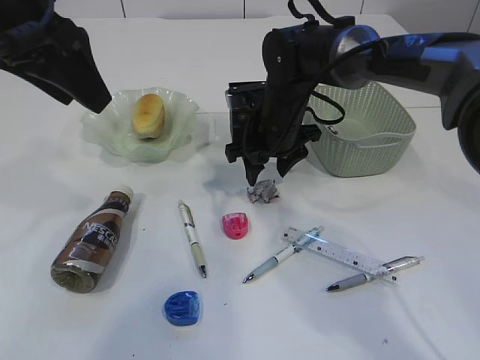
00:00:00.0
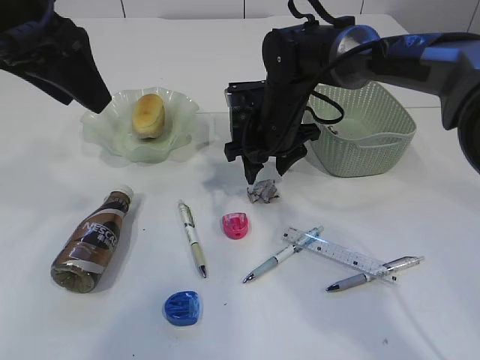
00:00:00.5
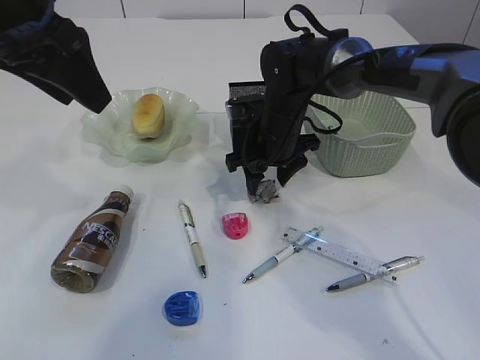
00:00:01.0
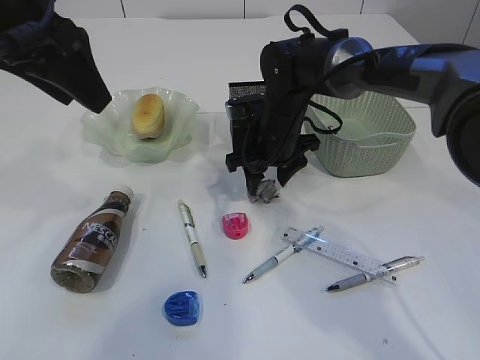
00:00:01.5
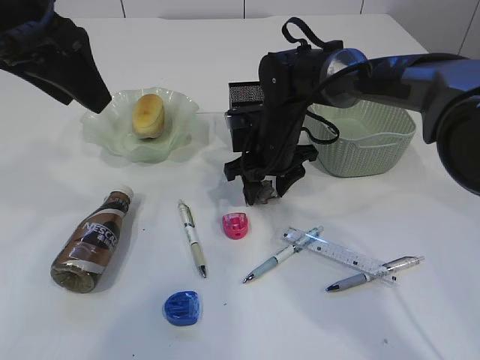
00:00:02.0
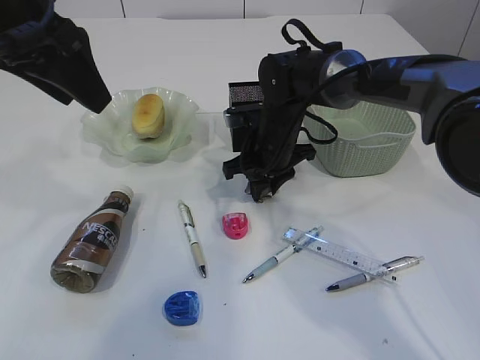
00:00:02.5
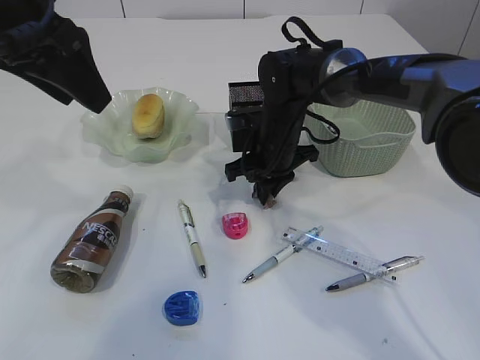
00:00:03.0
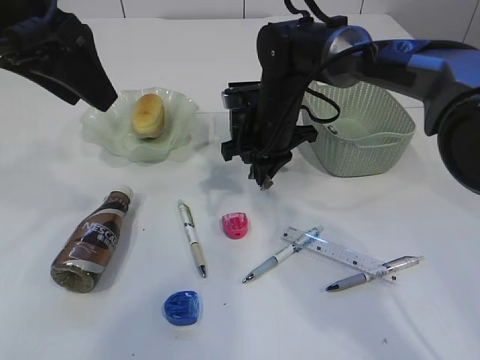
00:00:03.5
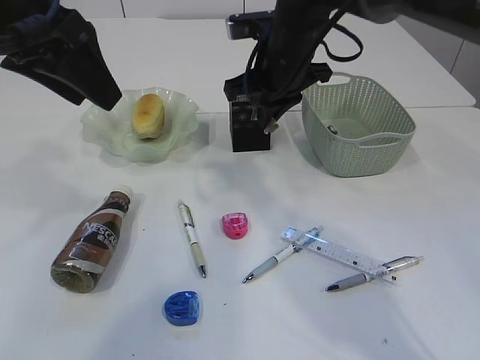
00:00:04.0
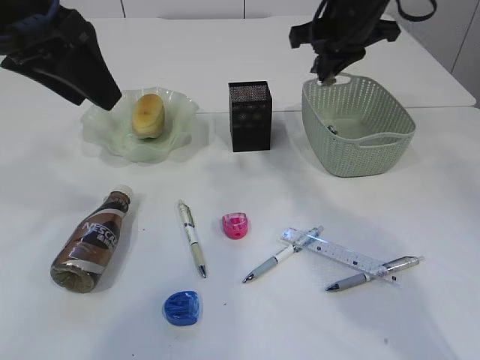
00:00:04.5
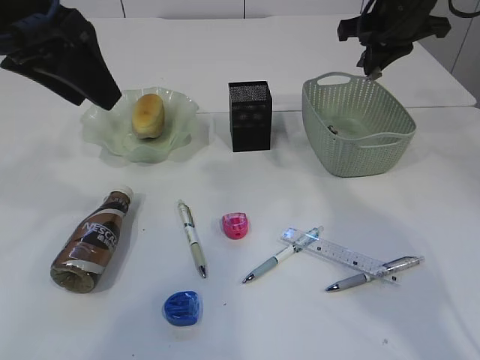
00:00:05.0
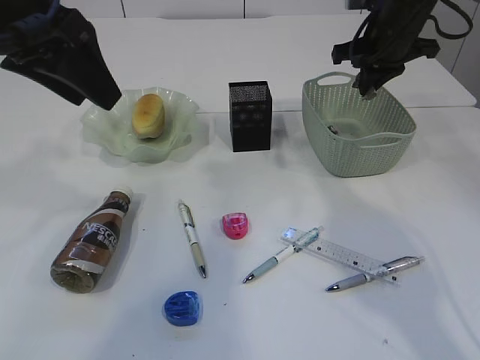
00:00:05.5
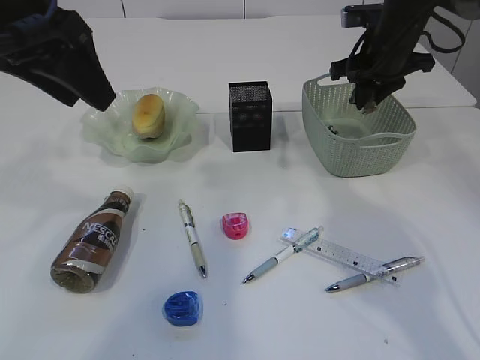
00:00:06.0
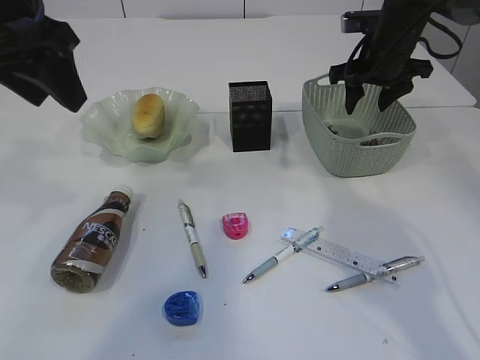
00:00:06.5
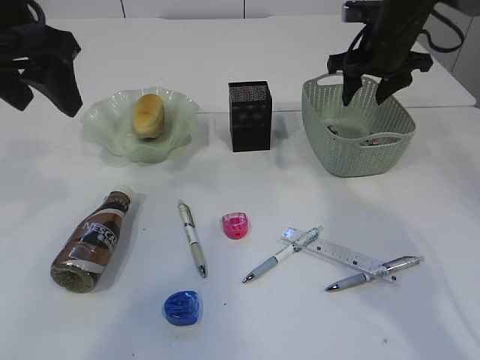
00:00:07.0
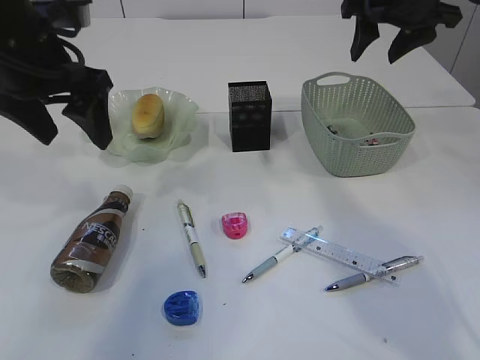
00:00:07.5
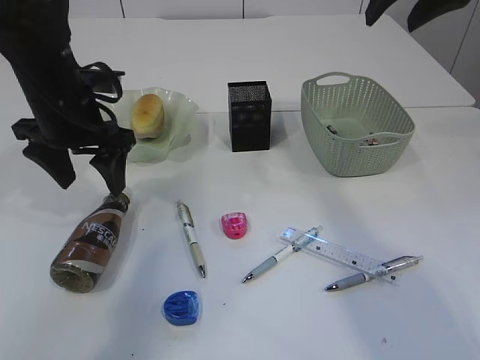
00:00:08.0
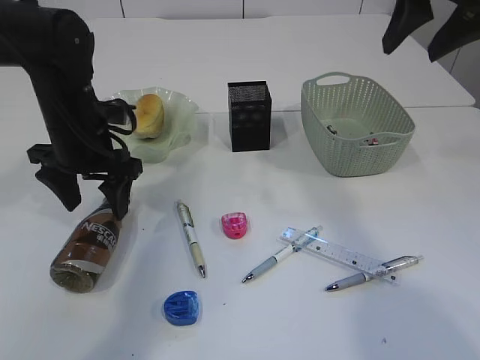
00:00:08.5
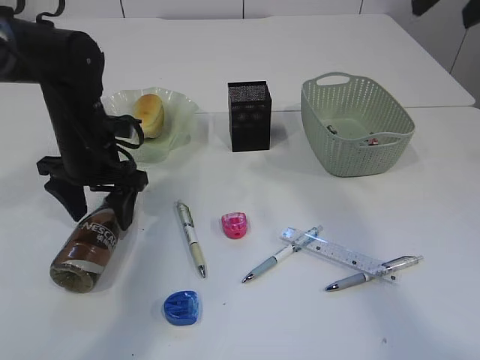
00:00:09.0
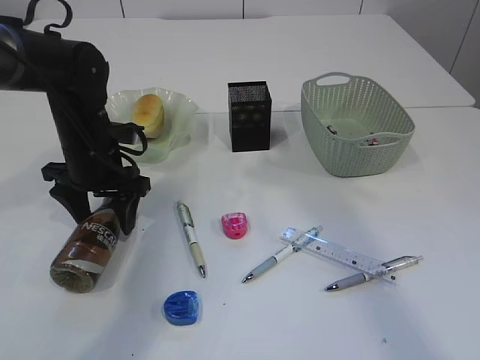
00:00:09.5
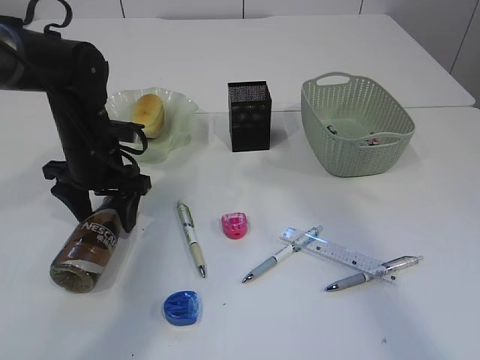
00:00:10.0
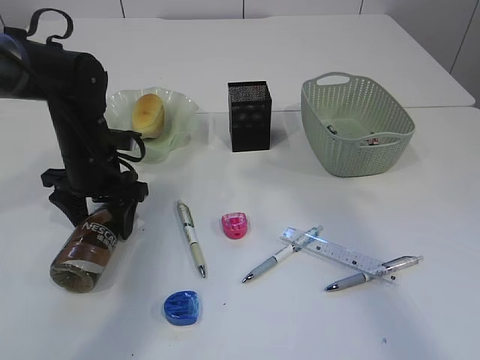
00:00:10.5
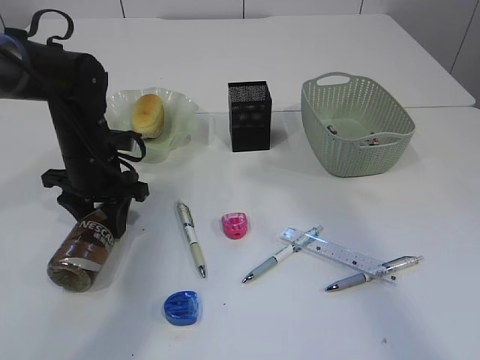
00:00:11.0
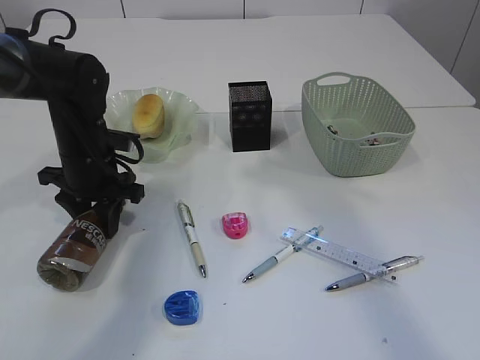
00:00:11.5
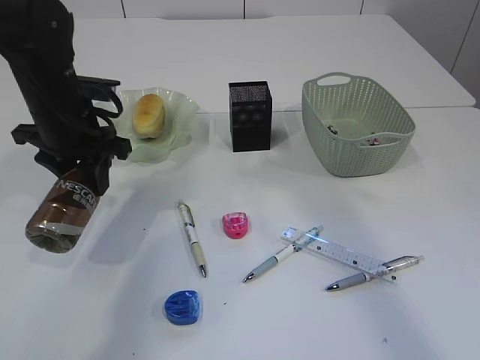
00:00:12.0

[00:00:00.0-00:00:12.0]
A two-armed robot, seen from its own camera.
Step, 00:00:00.0 to 00:00:03.5: Pick up the waste paper.
Step, 00:00:04.0 to 00:00:07.0: Place the waste paper in the basket.
Step, 00:00:07.5 to 00:00:11.5: Pick up the bottle with the left arm.
00:00:00.0 to 00:00:02.0: The grippers make only small movements.
00:00:02.0 to 00:00:04.0: The right gripper moves upward, roughly 10 cm, and closes up.
00:00:04.0 to 00:00:06.0: The right gripper shifts approximately 15 cm to the right.
00:00:06.0 to 00:00:08.0: The left gripper heads downward and forward, covering some 15 cm, and opens up; the right gripper moves upward and backward, approximately 15 cm, and opens up.
00:00:08.0 to 00:00:10.0: The left gripper heads downward, covering roughly 10 cm. Meanwhile the right gripper is displaced backward and upward by roughly 15 cm.
00:00:10.0 to 00:00:12.0: The left gripper moves upward, roughly 5 cm, and closes up.

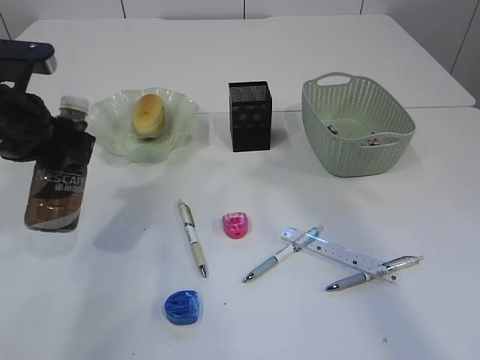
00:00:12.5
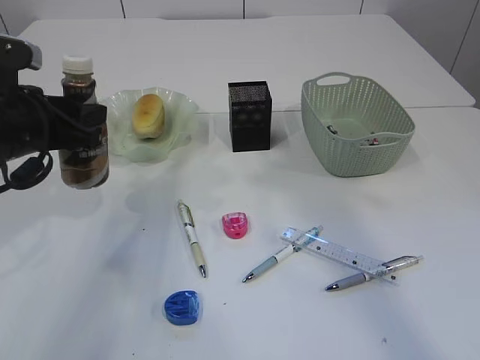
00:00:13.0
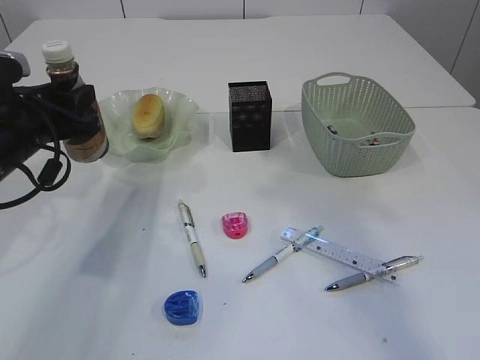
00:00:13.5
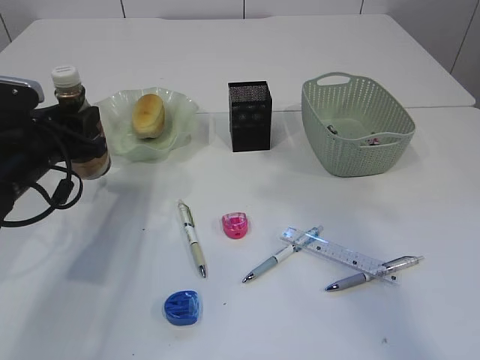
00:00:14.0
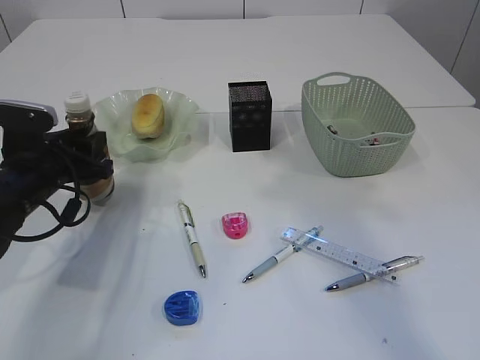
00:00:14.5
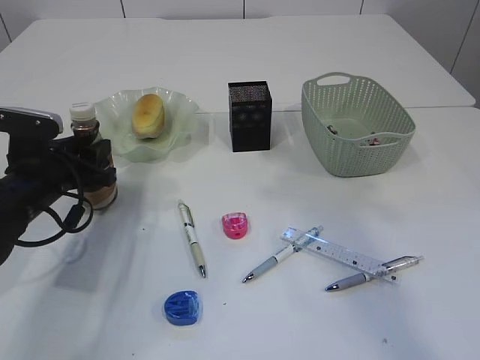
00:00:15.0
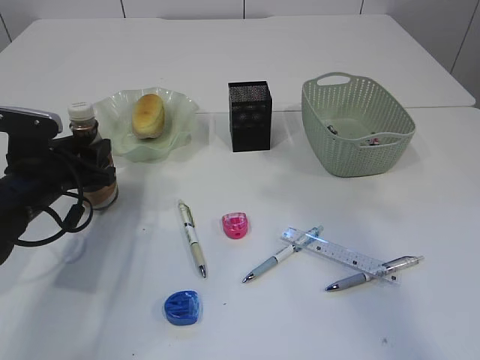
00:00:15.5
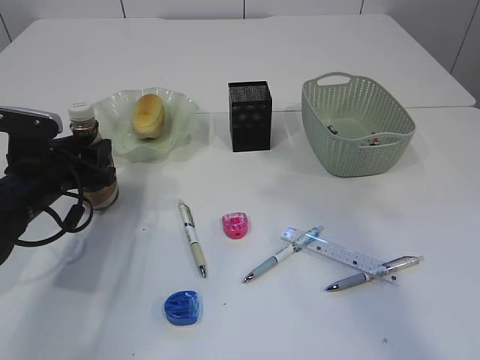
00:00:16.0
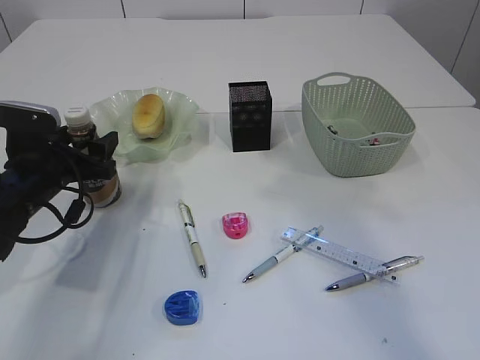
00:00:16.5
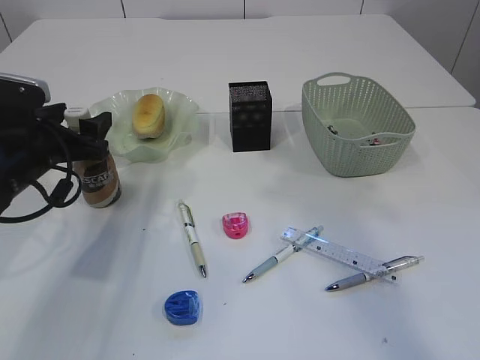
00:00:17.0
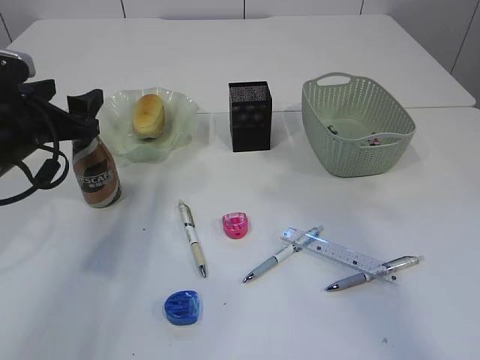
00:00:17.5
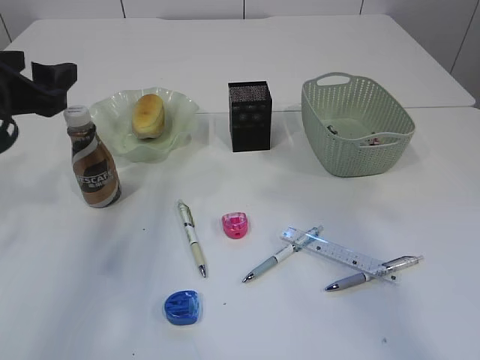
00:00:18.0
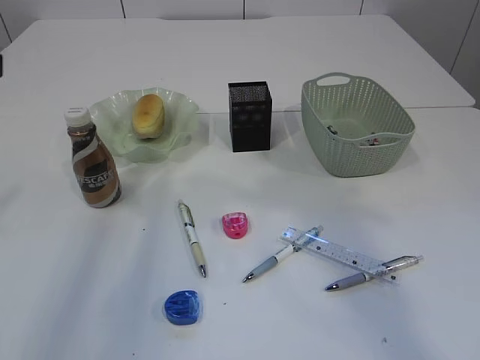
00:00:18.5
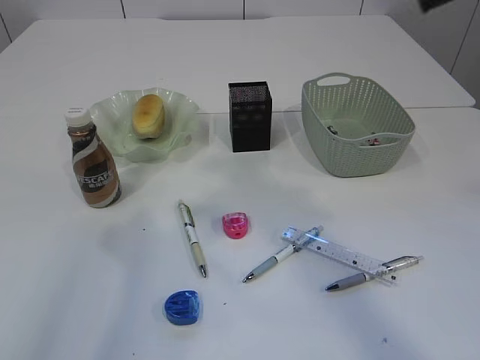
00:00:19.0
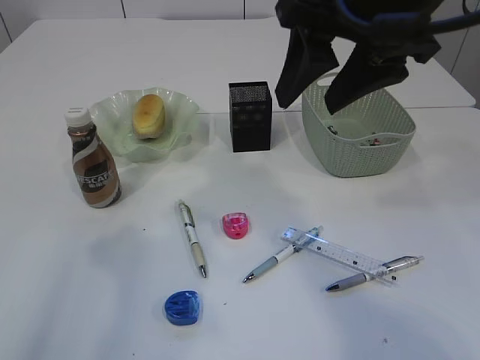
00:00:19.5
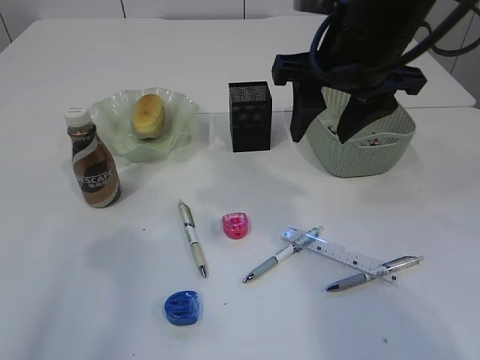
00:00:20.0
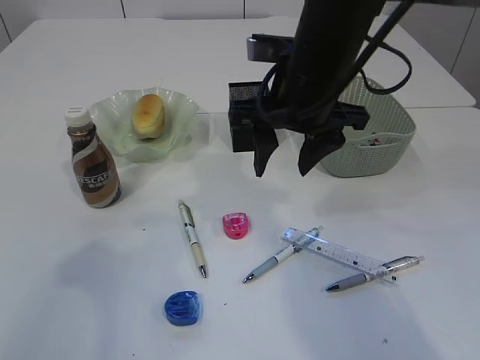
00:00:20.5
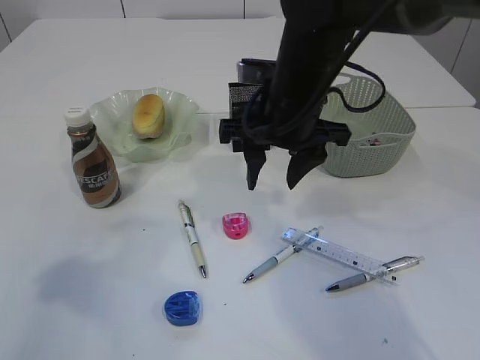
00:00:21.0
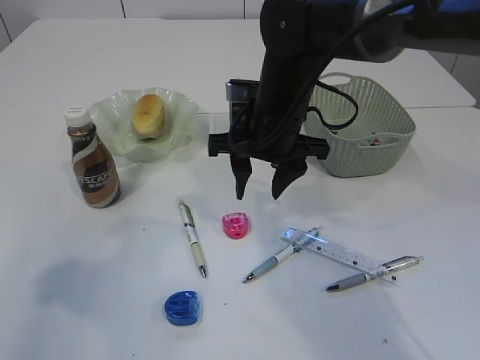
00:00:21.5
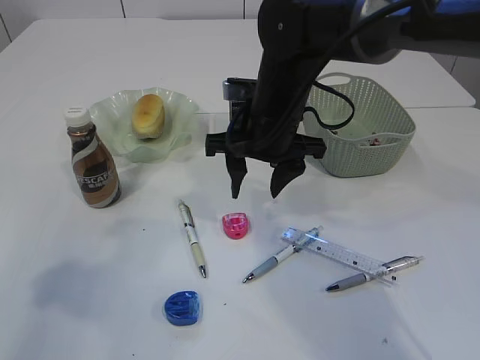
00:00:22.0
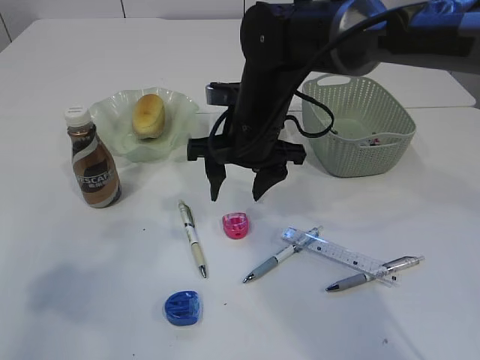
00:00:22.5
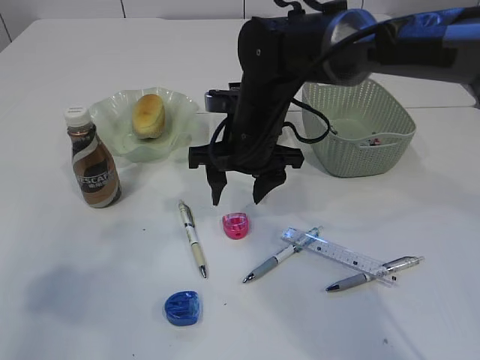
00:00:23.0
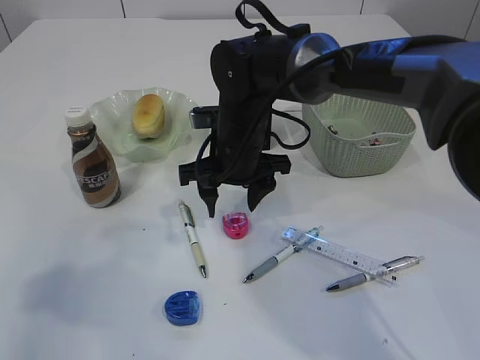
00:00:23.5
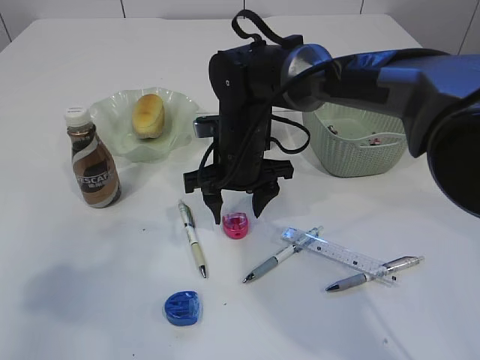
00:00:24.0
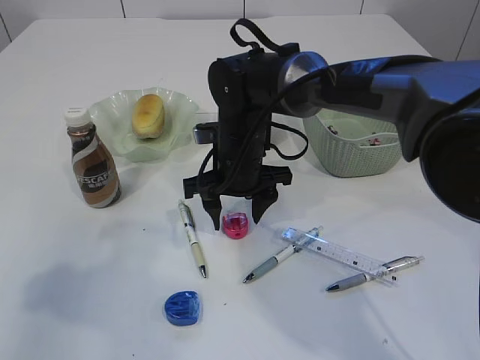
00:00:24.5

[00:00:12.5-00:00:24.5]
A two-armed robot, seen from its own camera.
Step, 00:00:12.5 to 00:00:18.0: Place the bottle.
00:00:12.5 to 00:00:14.5: The left gripper shifts roughly 10 cm downward.
00:00:14.5 to 00:00:16.5: The left gripper opens its fingers.
00:00:16.5 to 00:00:18.5: The left gripper travels upward and backward by approximately 25 cm.
00:00:18.5 to 00:00:20.5: The right gripper is displaced downward, to the left and forward by about 30 cm. The left gripper is displaced backward by about 5 cm.
00:00:20.5 to 00:00:22.5: The right gripper is displaced downward by some 5 cm.
00:00:22.5 to 00:00:24.5: The right gripper shifts some 5 cm downward.

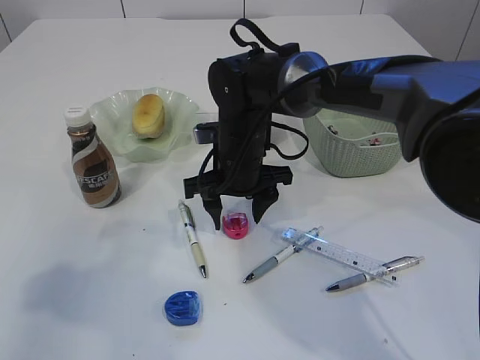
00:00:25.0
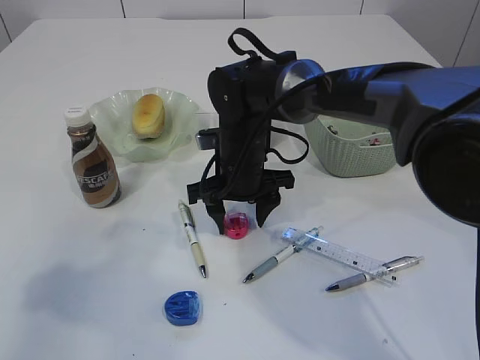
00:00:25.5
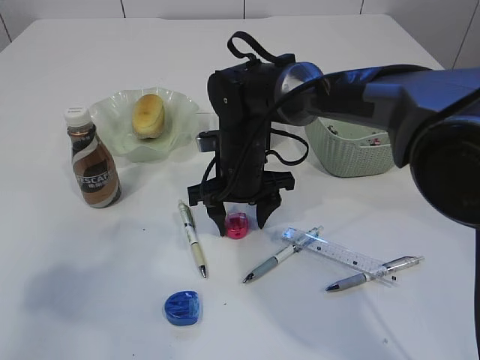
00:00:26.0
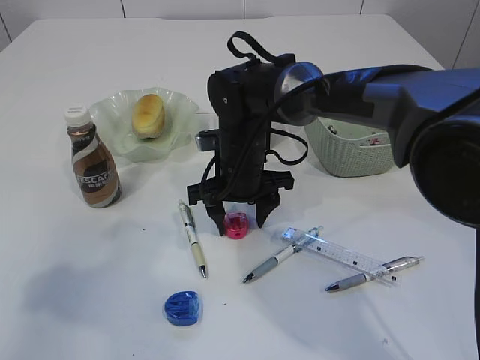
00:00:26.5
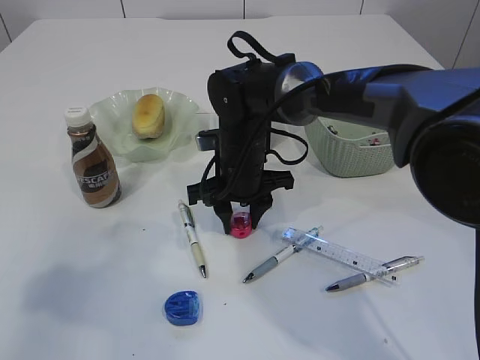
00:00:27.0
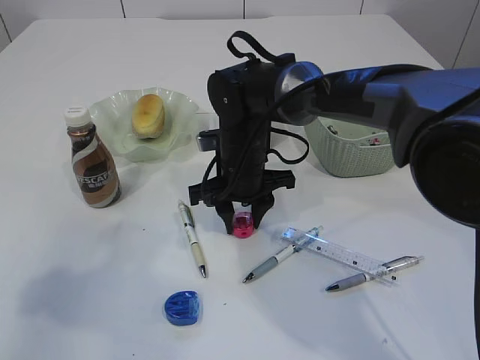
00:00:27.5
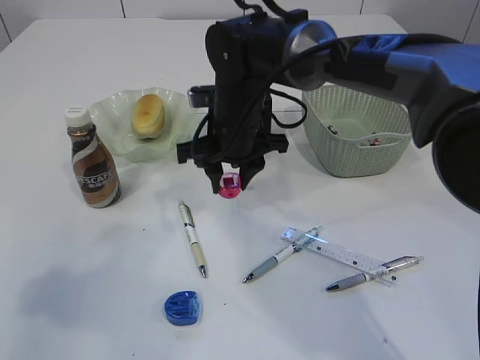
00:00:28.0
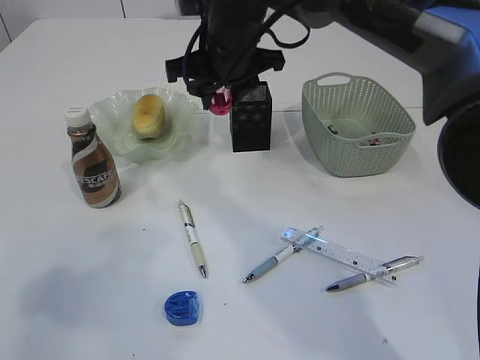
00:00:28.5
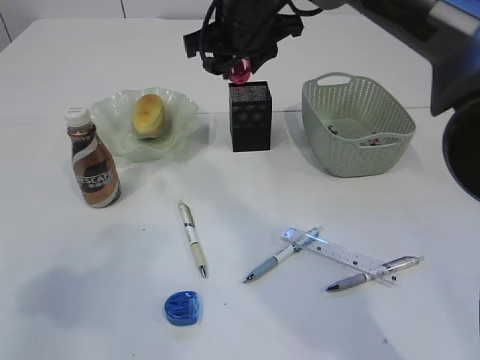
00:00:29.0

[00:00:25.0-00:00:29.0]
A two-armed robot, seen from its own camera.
Step, 00:00:25.0 to 00:00:27.5: Pick up the red pencil sharpener.
00:00:25.0 to 00:00:27.0: The right gripper closes up.
00:00:27.0 to 00:00:29.0: The right gripper travels upward by about 15 cm.
